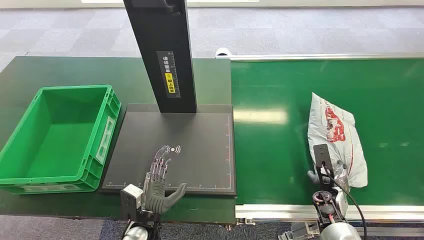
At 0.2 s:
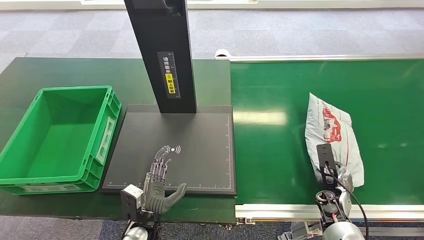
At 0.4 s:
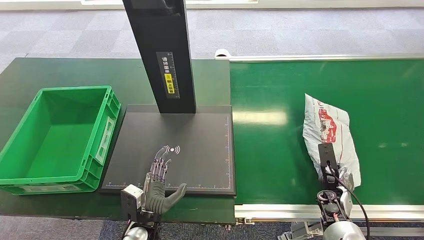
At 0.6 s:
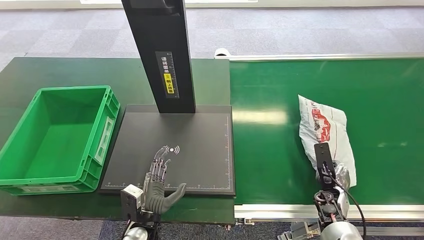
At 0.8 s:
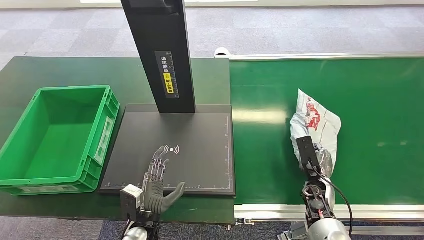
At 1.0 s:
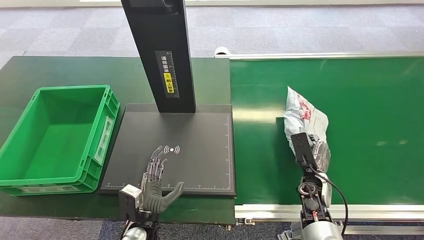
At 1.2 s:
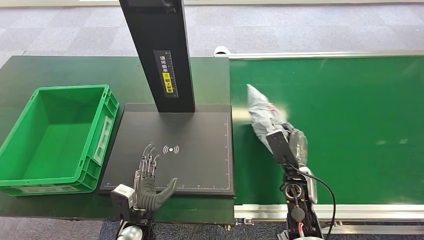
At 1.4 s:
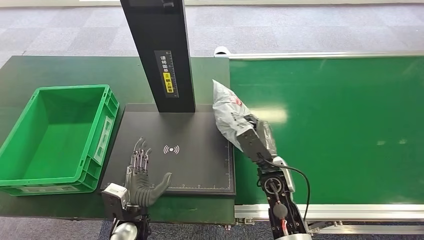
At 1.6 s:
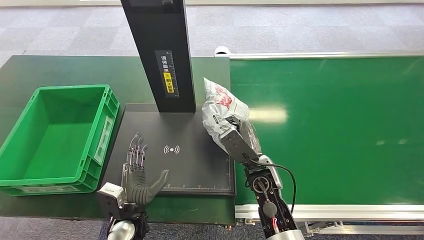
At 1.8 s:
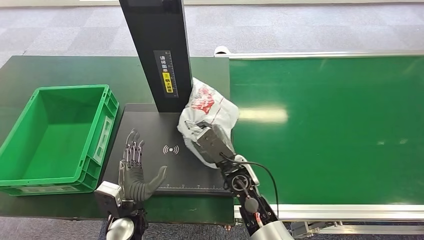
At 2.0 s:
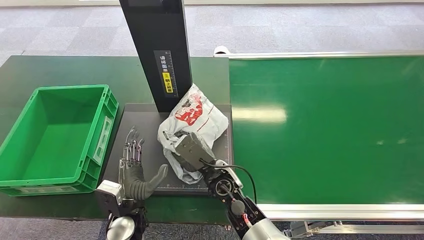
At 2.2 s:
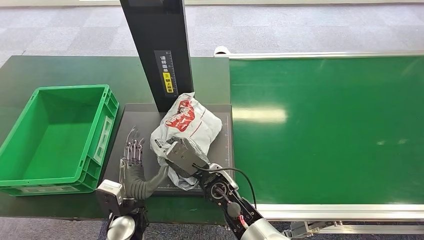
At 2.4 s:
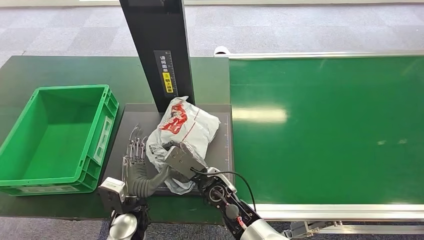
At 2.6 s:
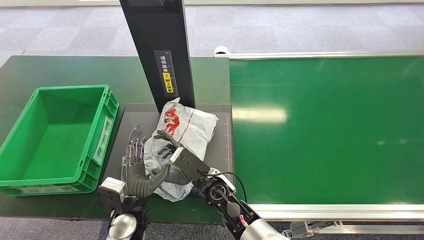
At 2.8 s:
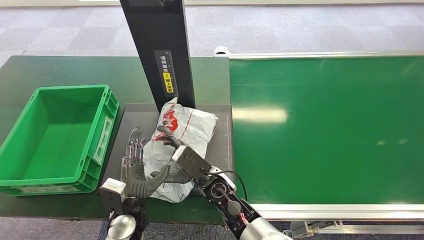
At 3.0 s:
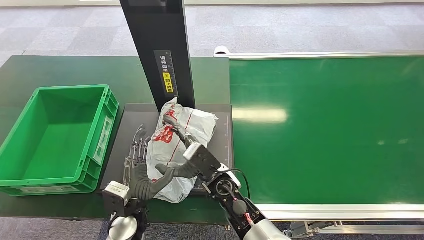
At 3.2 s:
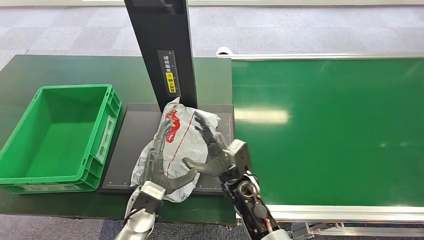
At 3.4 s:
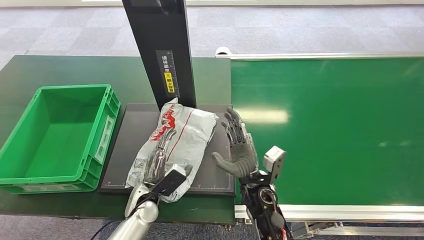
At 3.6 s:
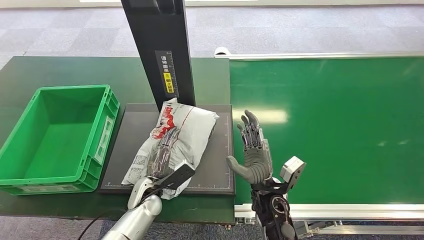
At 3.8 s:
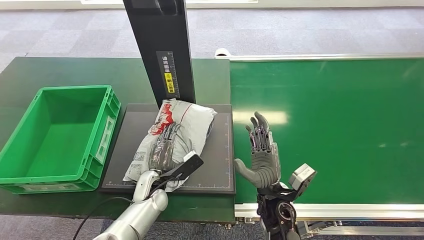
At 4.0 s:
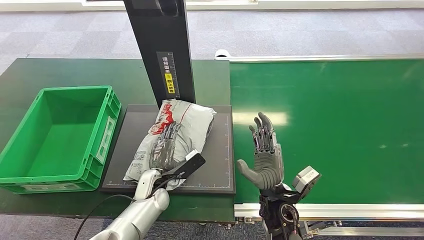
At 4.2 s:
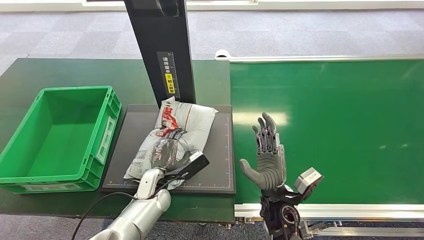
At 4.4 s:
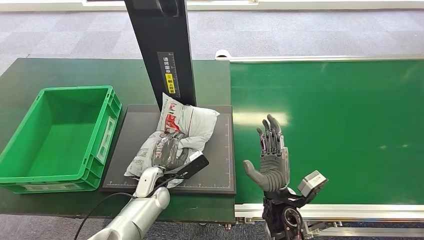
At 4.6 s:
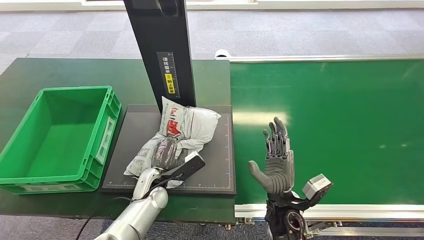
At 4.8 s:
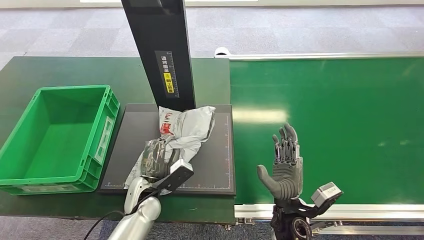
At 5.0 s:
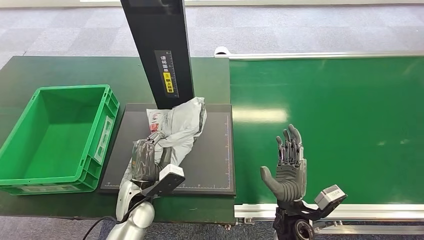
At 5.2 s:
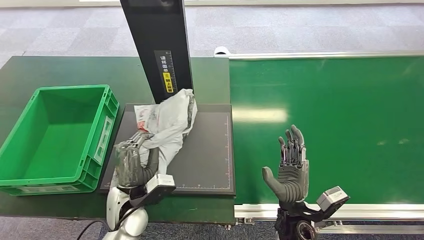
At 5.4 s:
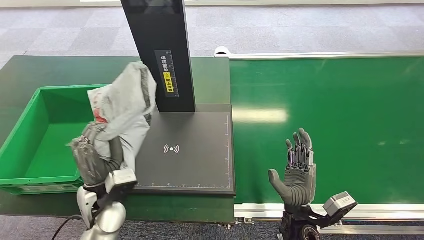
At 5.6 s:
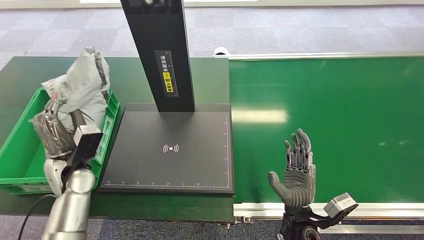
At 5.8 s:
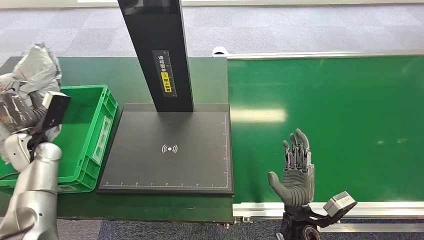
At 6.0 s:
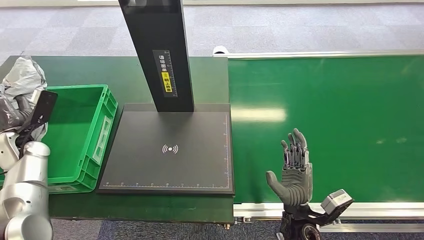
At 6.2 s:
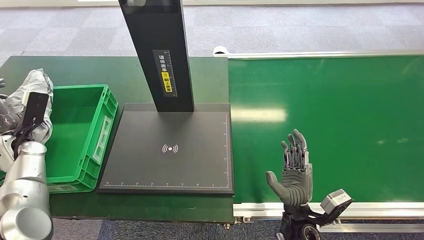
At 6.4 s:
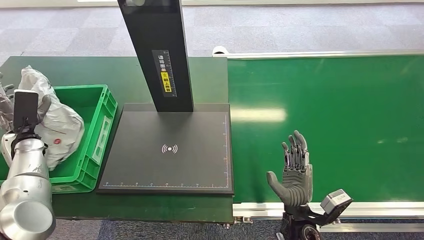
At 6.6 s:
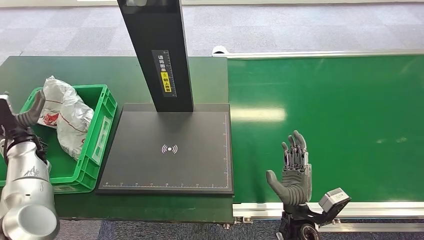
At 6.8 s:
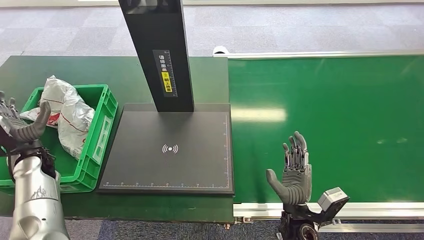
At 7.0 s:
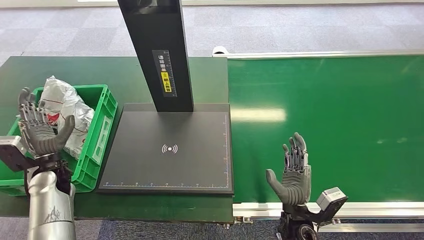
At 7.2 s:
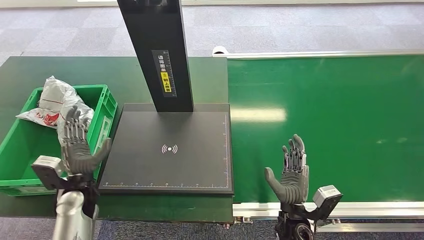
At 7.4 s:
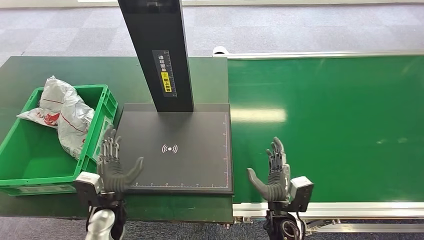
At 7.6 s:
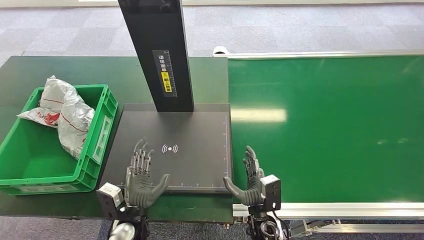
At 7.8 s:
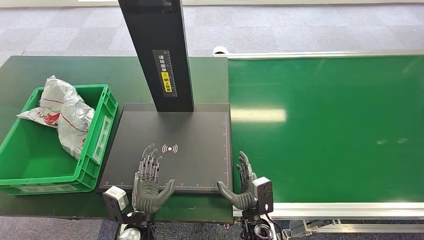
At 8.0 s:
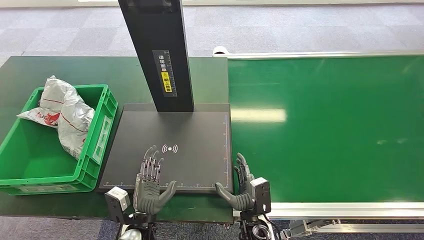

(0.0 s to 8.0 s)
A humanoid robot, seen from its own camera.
Step, 0.0 s - 1.2 s: Pick up the package from the conveyor belt.
Step, 1.4 s - 3.4 s: Place the package onto the inbound machine.
Step, 3.6 s - 5.0 s: Pick up the package from the inbound machine.
Step, 5.2 s - 8.0 s: Place the package into the parcel locker.
3.2 s - 4.8 s: The right hand travels to the right and backward by some 15 cm.
6.4 s - 8.0 s: The right hand goes some 10 cm to the left and downward. The left hand heads to the right and backward, covering about 35 cm.
